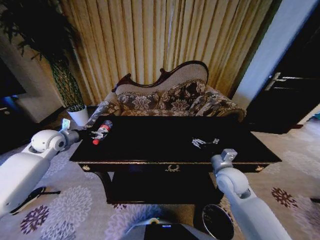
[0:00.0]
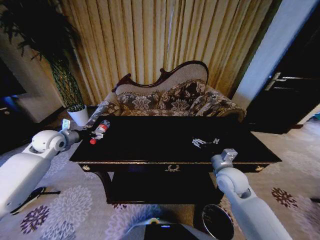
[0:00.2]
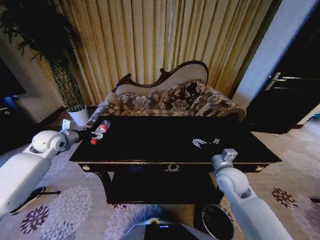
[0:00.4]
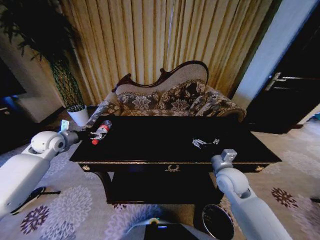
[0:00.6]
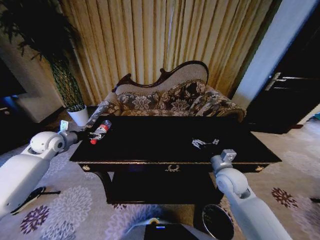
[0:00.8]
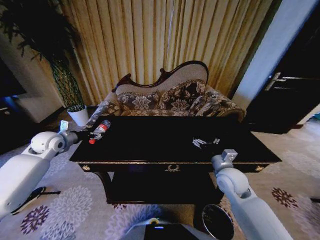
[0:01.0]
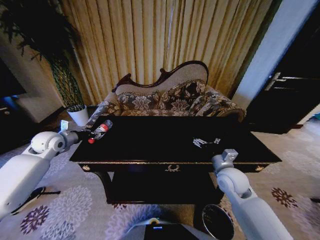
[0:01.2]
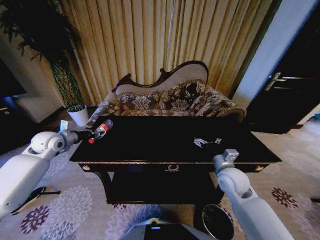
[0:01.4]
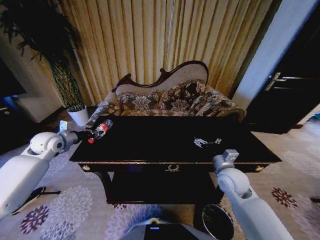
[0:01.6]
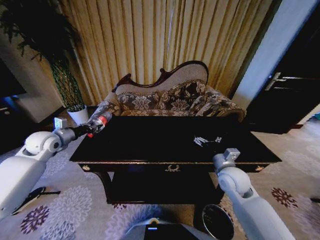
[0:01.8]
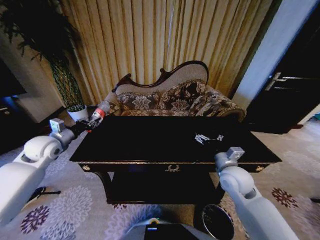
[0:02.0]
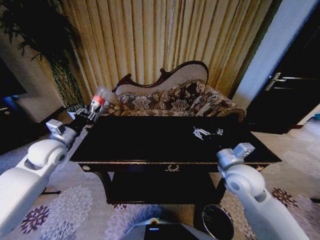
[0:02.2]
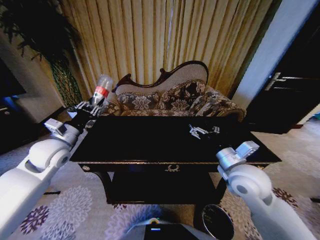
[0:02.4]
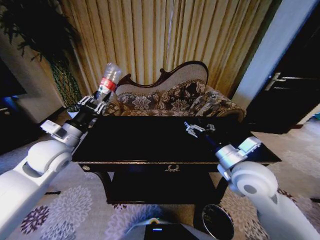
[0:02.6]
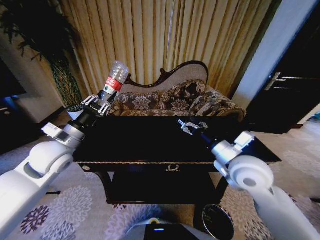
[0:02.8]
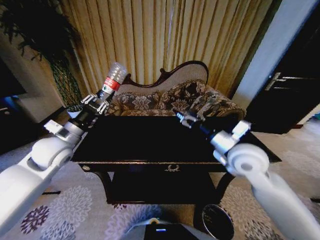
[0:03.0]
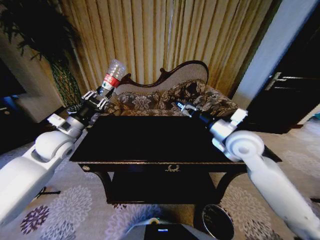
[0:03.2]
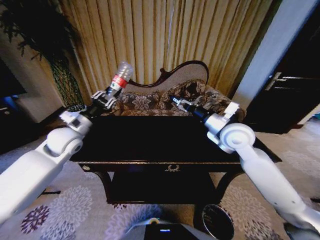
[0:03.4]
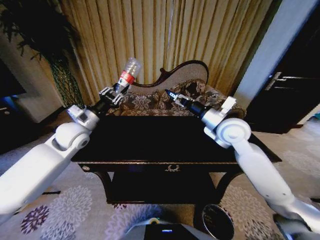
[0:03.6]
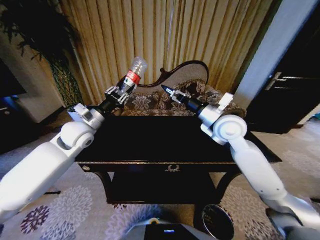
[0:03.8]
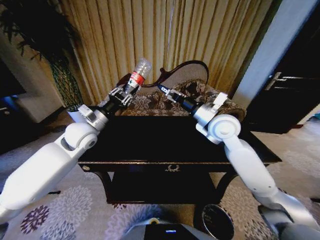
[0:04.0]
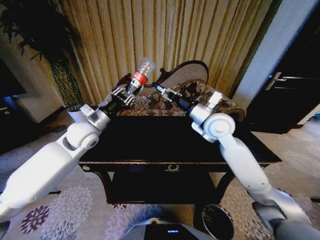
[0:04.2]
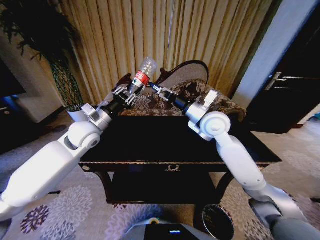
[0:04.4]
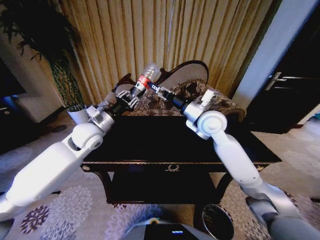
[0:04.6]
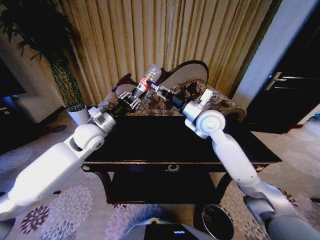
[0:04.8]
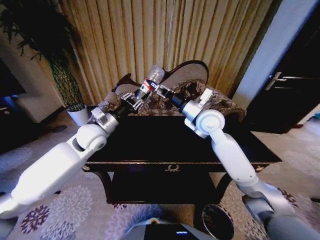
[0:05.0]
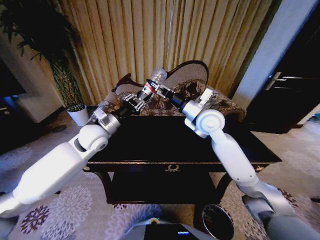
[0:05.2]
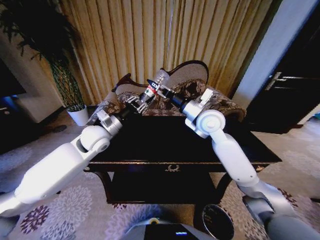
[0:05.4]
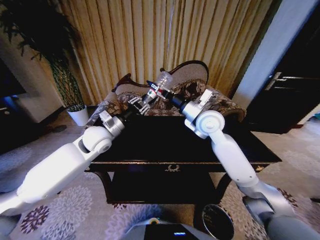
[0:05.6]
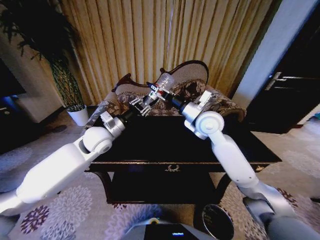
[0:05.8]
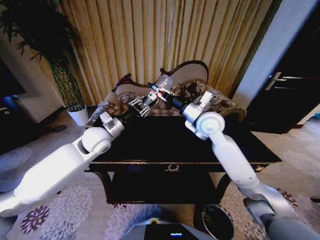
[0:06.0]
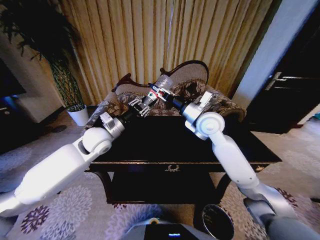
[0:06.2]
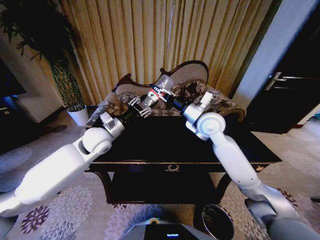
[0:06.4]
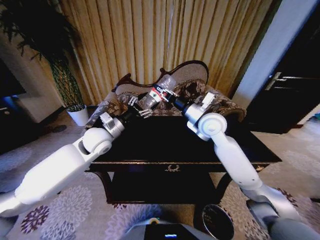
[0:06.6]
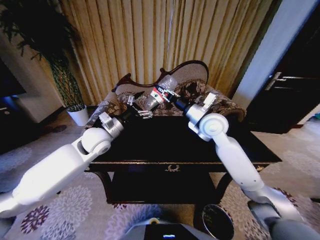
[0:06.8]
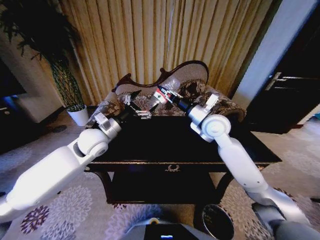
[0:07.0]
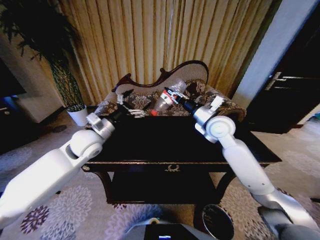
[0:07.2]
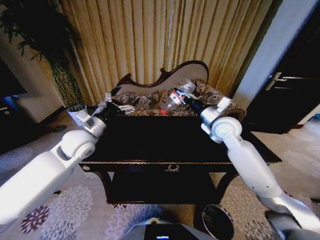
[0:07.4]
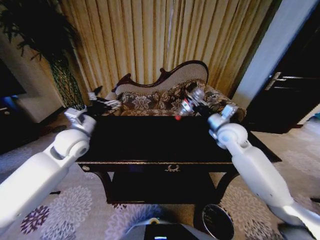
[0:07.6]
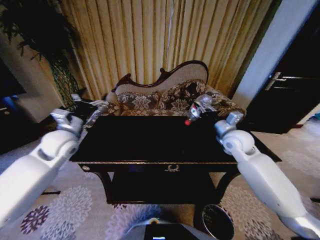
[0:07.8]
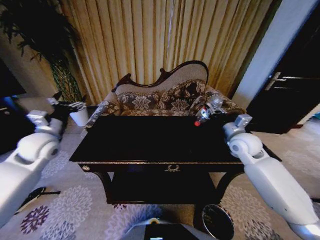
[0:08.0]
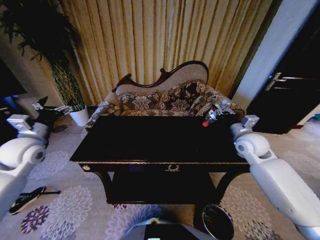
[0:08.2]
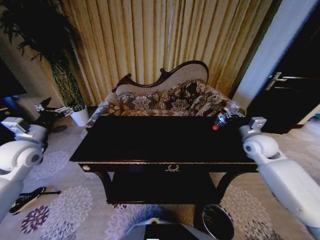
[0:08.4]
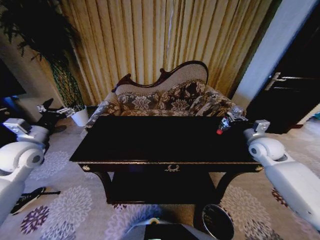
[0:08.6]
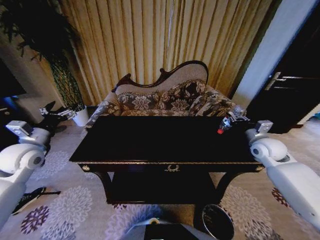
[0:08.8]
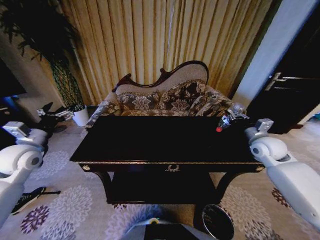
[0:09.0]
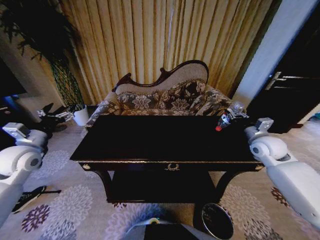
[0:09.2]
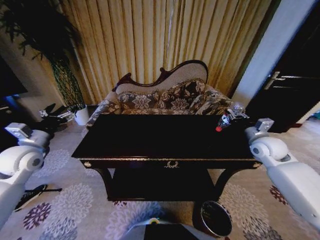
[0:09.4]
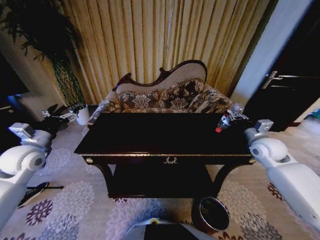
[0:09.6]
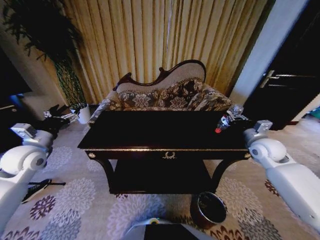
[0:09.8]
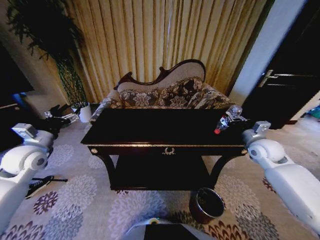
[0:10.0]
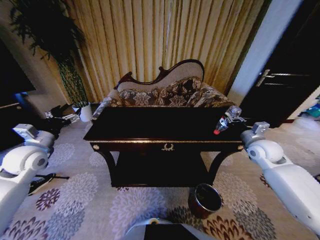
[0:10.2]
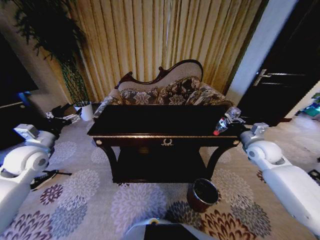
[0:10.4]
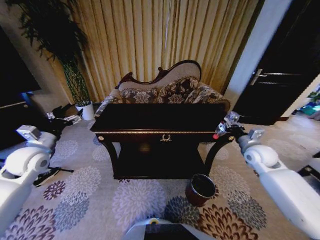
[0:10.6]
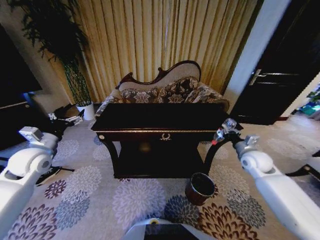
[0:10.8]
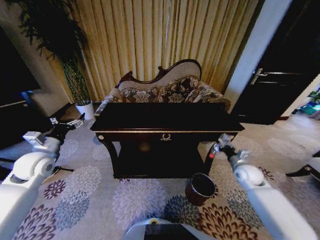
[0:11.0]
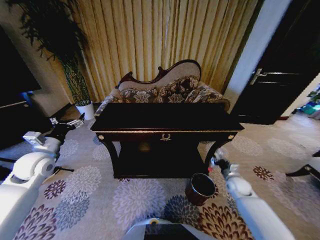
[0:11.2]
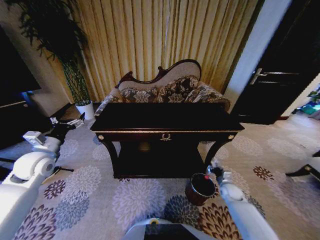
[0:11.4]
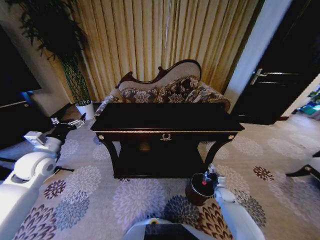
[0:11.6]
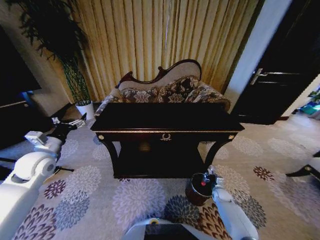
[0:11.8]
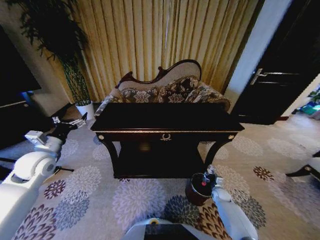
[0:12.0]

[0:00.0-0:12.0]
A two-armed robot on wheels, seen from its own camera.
Task of the whole recording: Move to the front of the table and place the trash on the table into the trash bin.
0:00.0 to 0:01.6: The left gripper closes up.
0:01.6 to 0:03.0: The left gripper moves to the right and backward, about 15 cm, while the right gripper moves upward, approximately 15 cm.
0:03.0 to 0:04.4: The left gripper goes roughly 10 cm to the right and forward. Meanwhile the right gripper goes approximately 15 cm forward and to the left.
0:04.4 to 0:06.0: The grippers make only small movements.
0:06.0 to 0:07.6: The right gripper moves to the right, about 10 cm, and closes its fingers. The left gripper is displaced to the left by about 5 cm, and opens up.
0:07.6 to 0:09.0: The right gripper goes approximately 15 cm to the right. The left gripper moves to the left, about 15 cm.
0:10.4 to 0:12.0: The right gripper heads downward, covering some 35 cm.

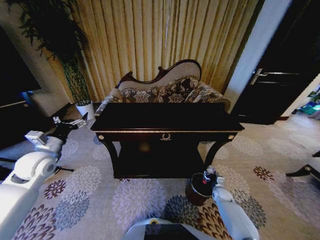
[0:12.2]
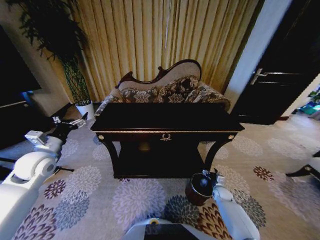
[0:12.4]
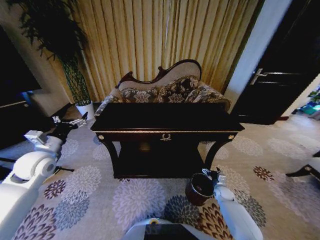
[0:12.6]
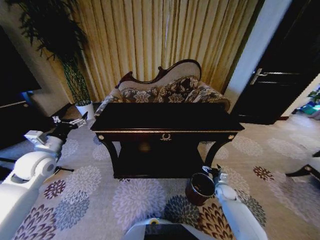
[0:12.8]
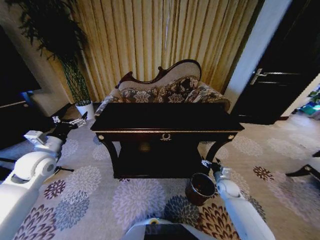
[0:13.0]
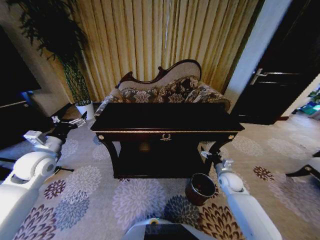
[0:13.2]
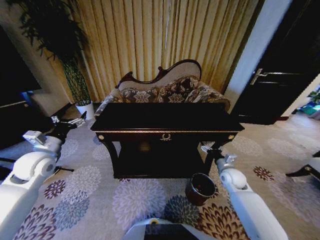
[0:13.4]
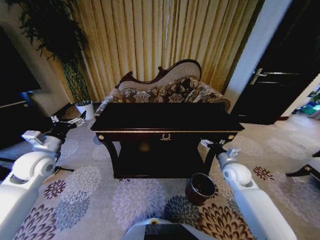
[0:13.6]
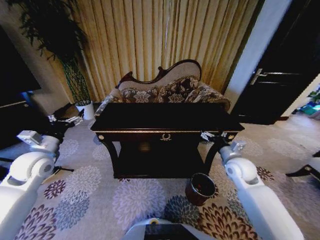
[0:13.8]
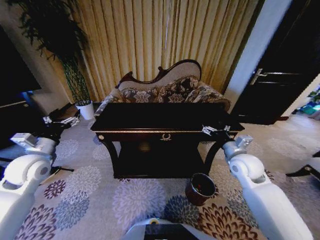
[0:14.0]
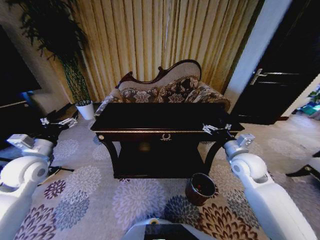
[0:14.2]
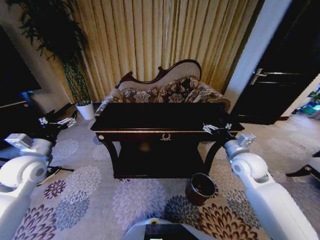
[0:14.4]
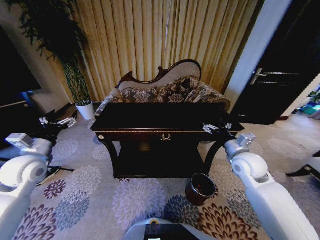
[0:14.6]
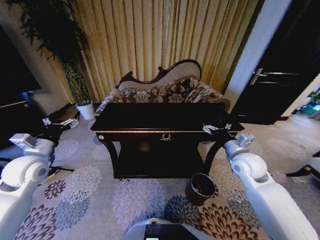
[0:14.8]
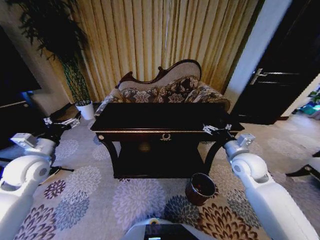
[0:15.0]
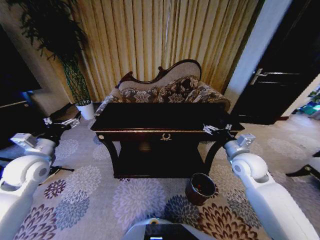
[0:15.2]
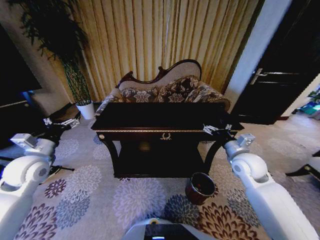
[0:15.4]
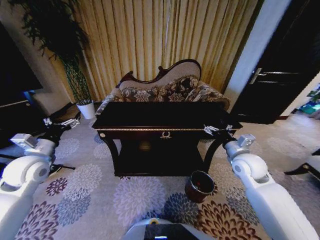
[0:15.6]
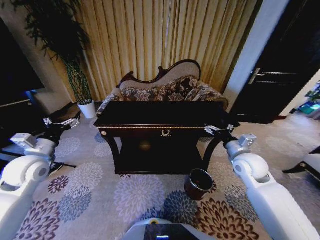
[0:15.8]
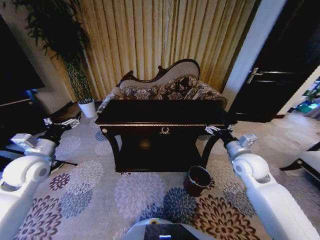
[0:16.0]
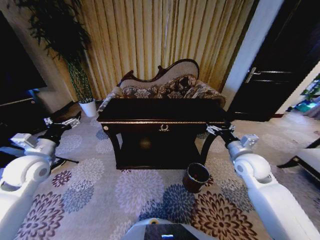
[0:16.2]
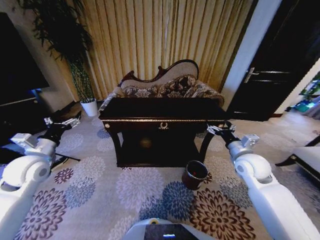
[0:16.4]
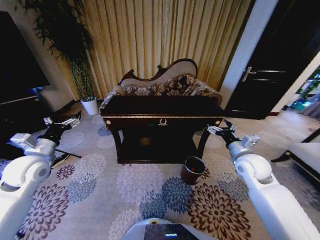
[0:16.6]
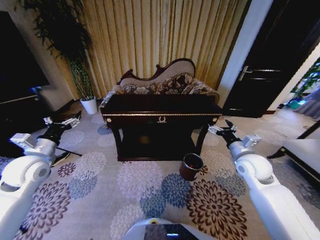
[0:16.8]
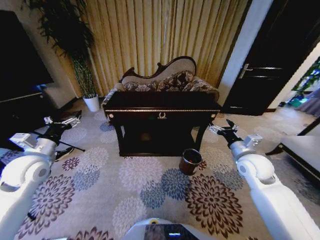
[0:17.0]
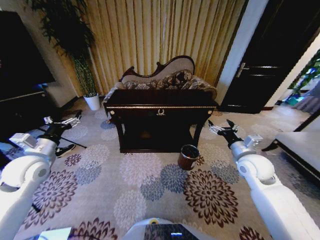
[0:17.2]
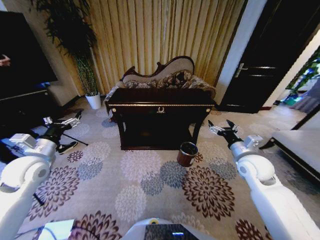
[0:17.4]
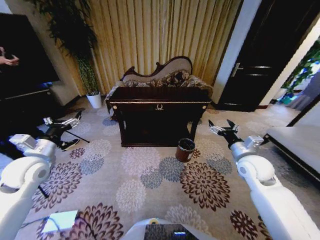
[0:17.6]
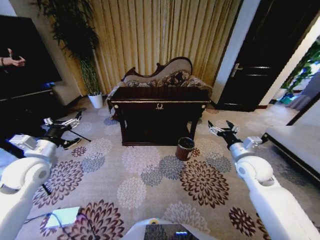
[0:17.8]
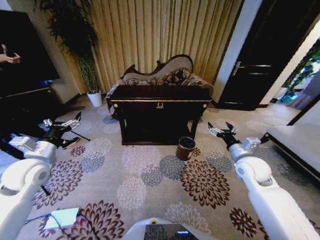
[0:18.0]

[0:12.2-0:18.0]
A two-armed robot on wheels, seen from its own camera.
Task of the whole recording: Move to the front of the table and place the trash on the table into the trash bin.
0:12.2 to 0:13.6: The right gripper travels upward by roughly 25 cm, and opens.
0:13.6 to 0:15.0: The right gripper goes some 10 cm upward.

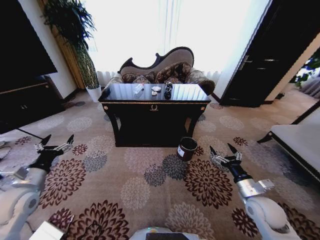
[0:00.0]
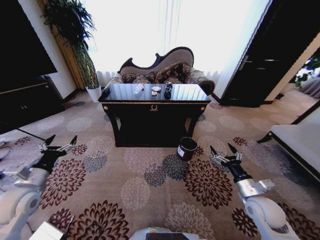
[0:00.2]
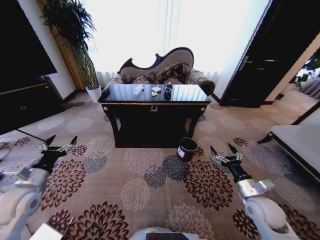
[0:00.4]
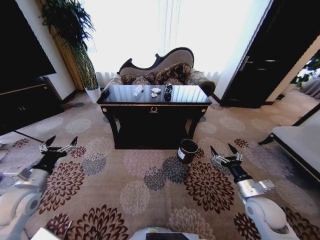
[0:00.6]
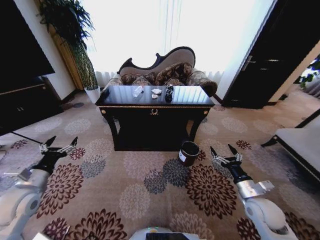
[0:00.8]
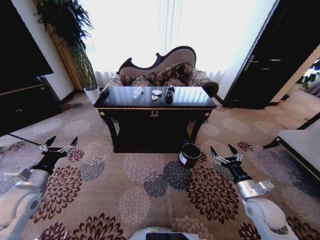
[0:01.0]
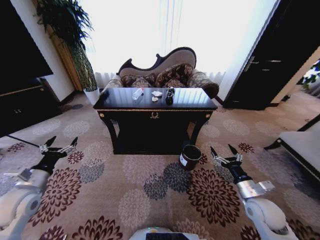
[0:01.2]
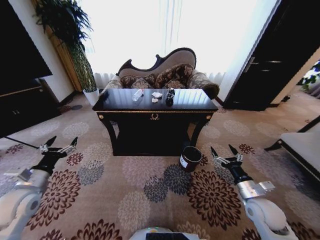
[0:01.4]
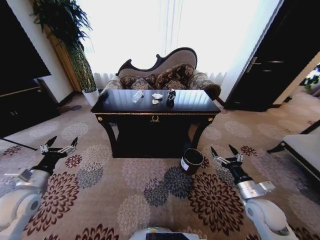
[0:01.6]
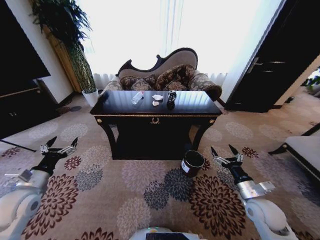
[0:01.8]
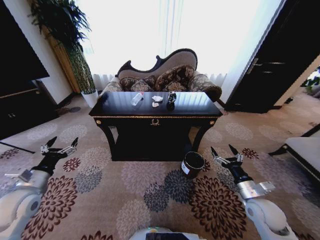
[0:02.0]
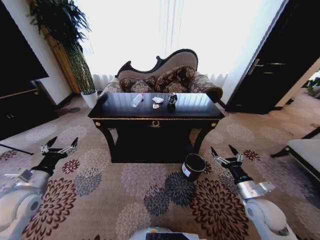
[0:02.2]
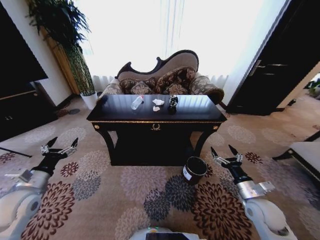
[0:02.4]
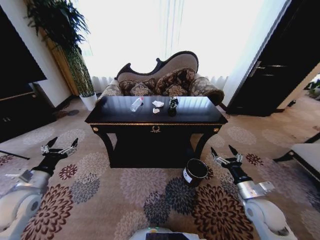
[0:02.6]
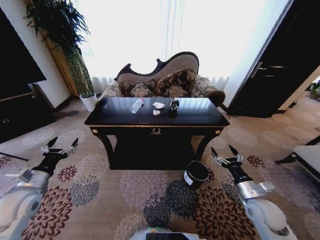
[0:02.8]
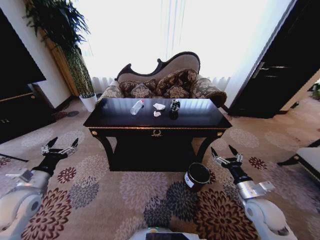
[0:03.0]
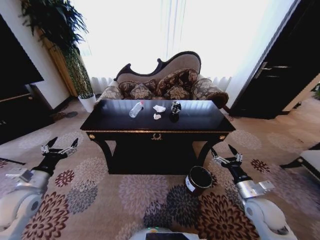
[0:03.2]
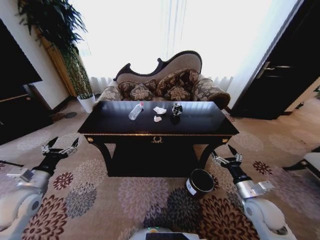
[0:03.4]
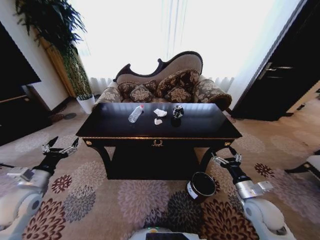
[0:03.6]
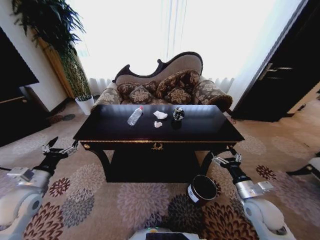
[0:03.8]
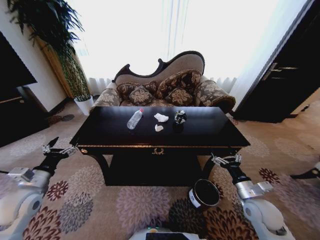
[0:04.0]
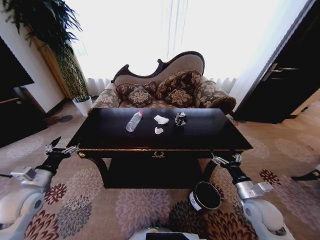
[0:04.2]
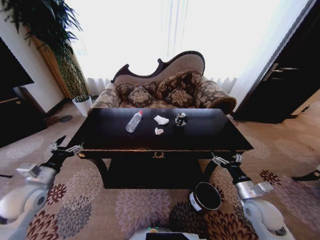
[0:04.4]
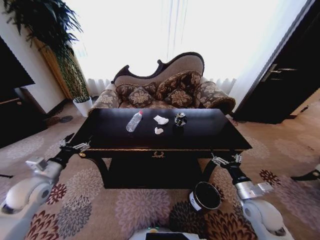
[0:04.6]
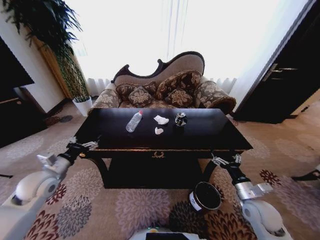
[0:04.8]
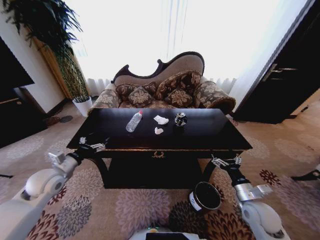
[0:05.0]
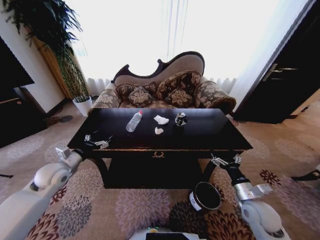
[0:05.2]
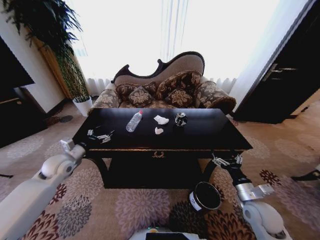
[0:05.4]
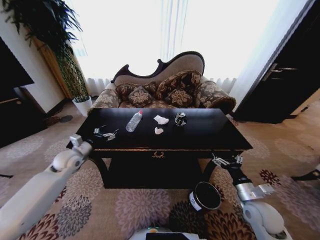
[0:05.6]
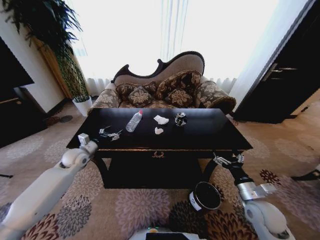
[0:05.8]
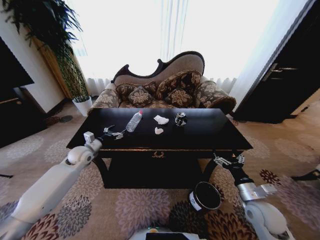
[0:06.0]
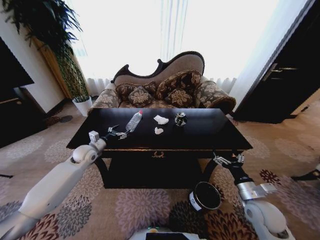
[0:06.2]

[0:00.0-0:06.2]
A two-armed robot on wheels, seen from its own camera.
Task of the whole recording: Move to the front of the table and place the trash on the table into the trash bin.
0:04.6 to 0:06.2: The left gripper goes approximately 20 cm forward and to the right.
